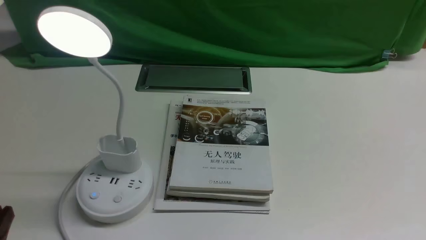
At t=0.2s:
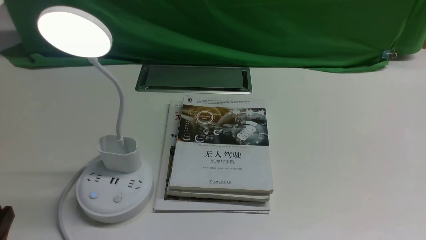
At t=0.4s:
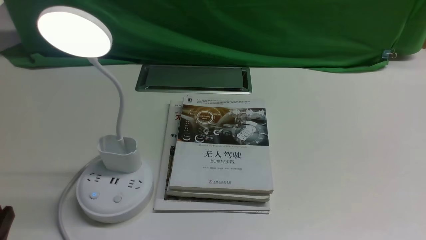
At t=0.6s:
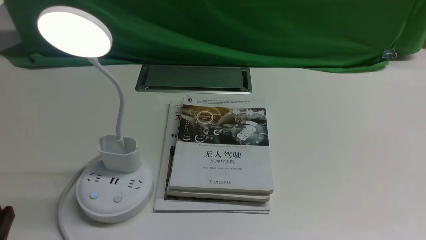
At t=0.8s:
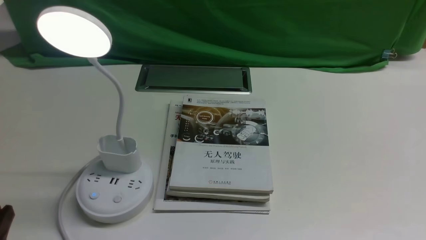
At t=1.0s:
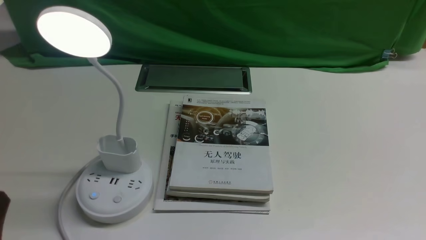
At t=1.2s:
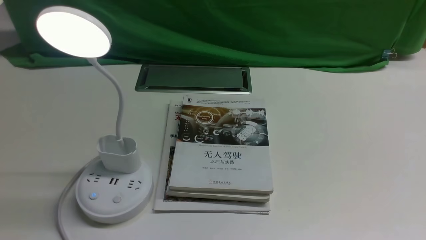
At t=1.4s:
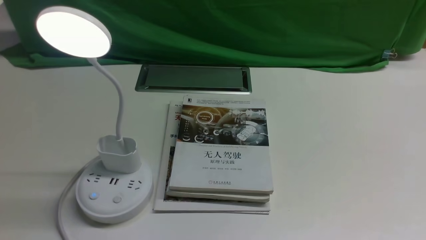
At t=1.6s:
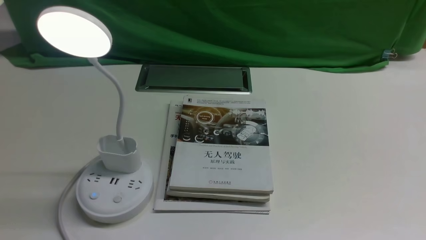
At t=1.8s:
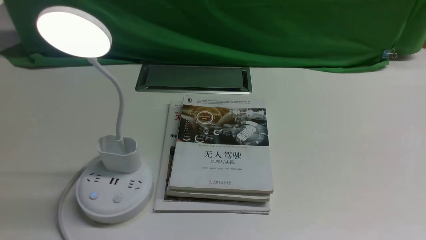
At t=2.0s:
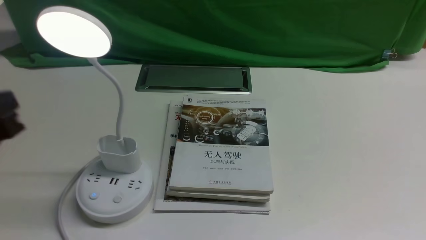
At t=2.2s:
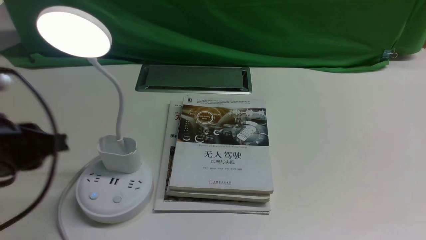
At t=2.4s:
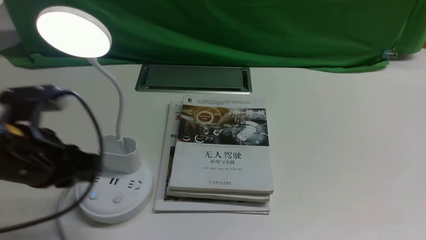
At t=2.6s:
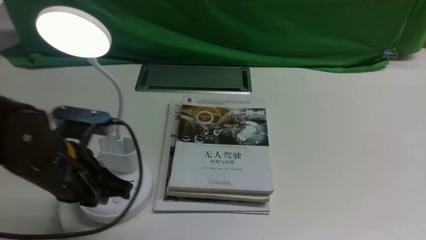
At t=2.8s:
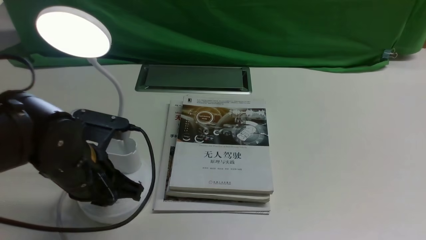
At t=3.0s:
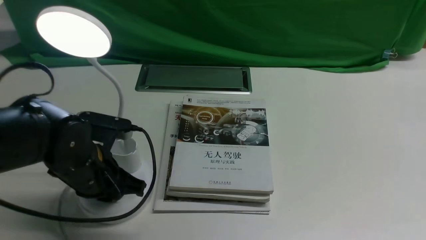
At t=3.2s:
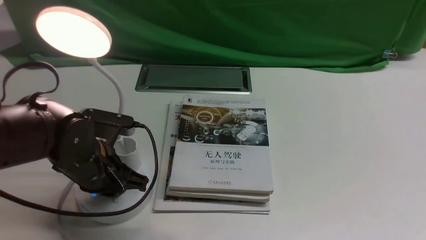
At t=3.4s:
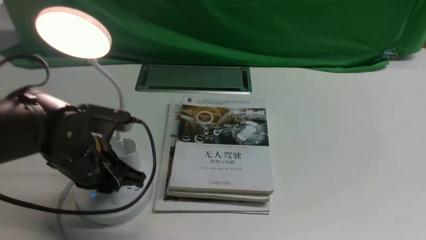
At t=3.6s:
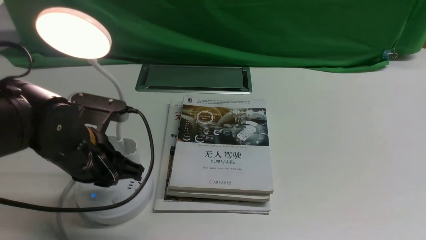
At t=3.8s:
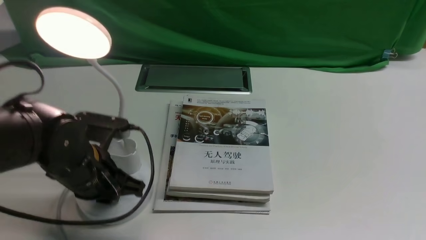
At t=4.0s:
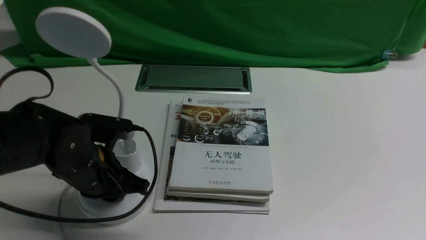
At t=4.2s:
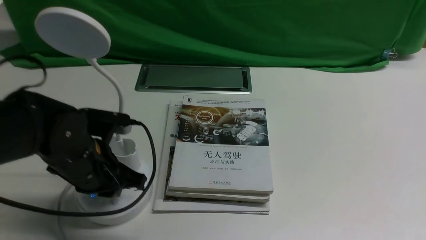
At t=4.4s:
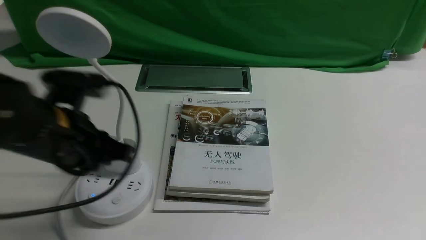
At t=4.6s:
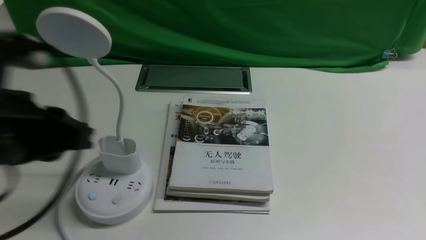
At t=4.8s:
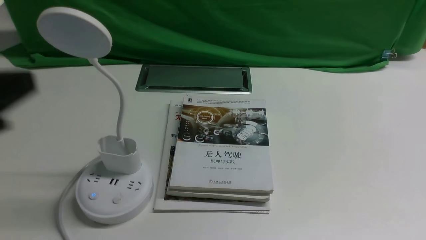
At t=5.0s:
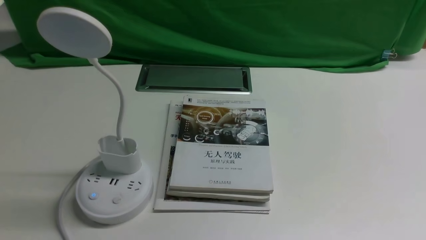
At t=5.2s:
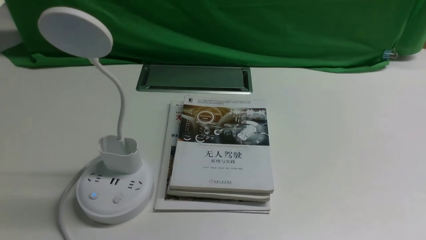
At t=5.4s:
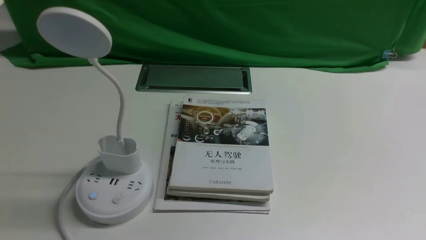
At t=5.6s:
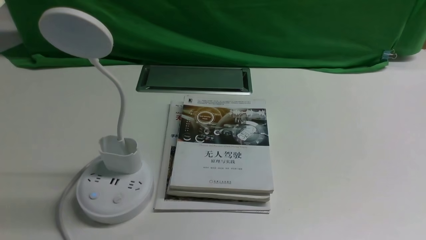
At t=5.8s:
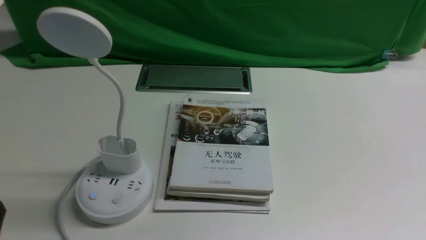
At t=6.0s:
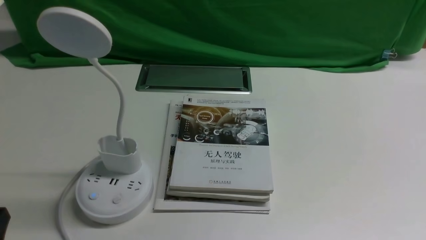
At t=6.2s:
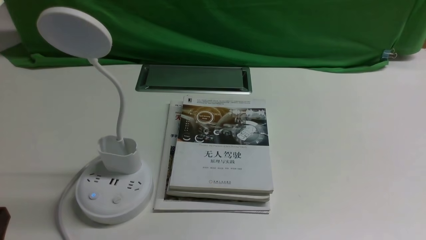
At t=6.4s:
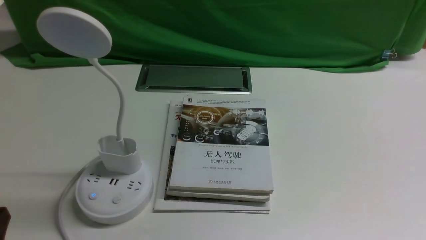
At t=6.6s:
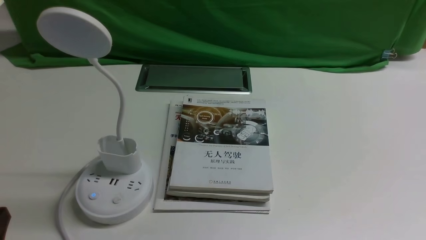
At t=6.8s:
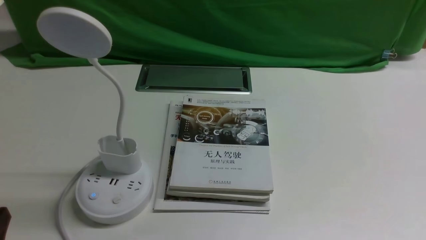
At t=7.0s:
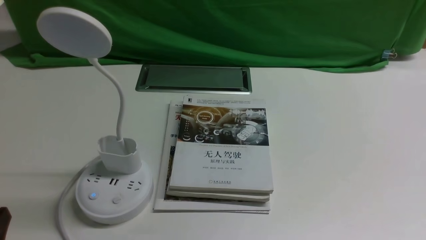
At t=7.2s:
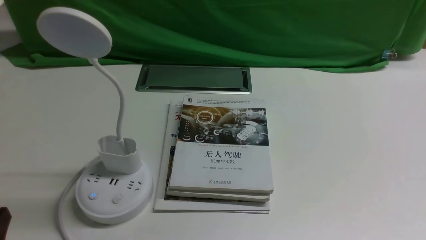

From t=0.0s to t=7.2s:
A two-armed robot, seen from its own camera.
Task of the whole recording: turn off the desk lamp on the white desktop by hand.
Step, from t=0.0s to t=4.2s: use the left arm to press the button switch on the lamp holder.
From t=1.4s to t=2.8s: The left gripper heads forward and to the right, covering roughly 20 cm.
From t=2.8s to t=4.4s: The grippers make only small movements.
From t=4.4s to t=5.8s: The left gripper is displaced backward and to the left by about 20 cm.

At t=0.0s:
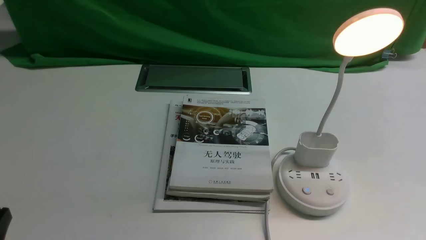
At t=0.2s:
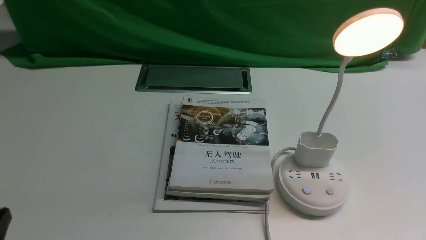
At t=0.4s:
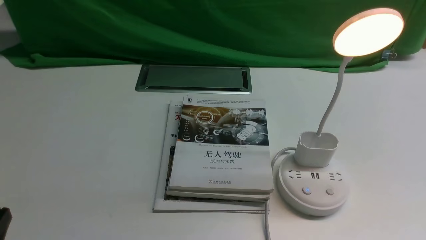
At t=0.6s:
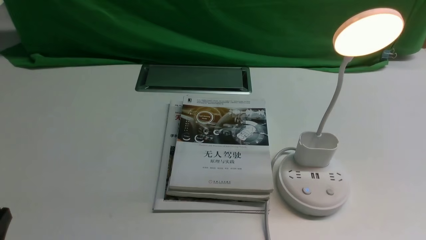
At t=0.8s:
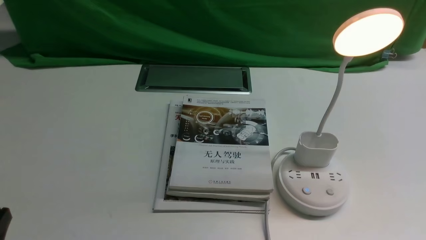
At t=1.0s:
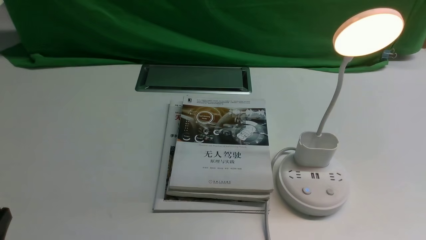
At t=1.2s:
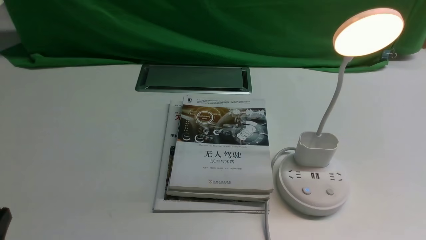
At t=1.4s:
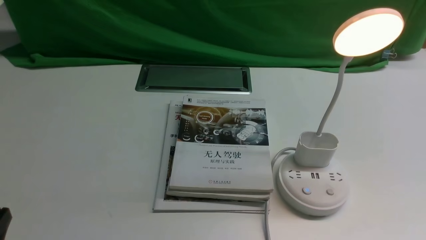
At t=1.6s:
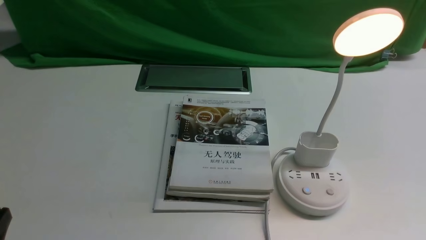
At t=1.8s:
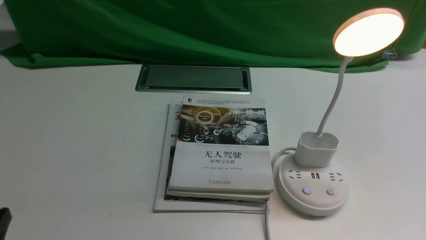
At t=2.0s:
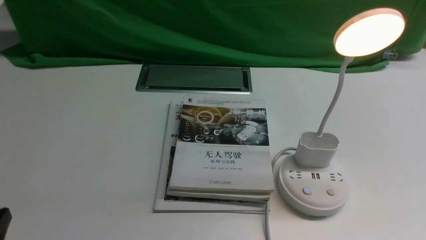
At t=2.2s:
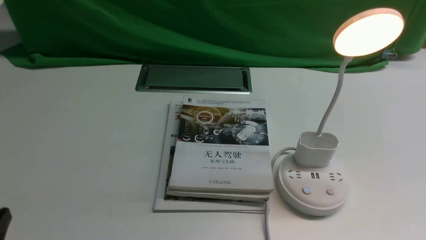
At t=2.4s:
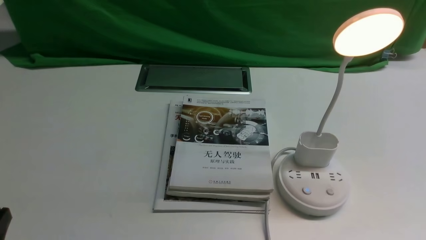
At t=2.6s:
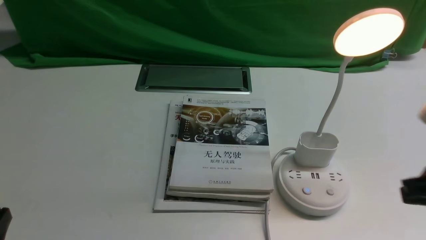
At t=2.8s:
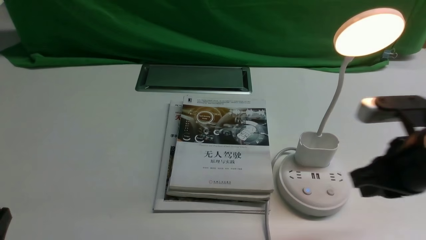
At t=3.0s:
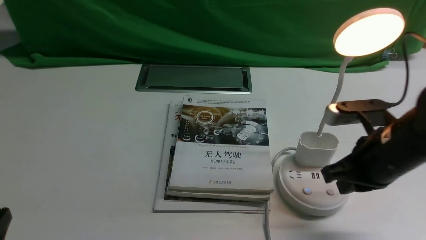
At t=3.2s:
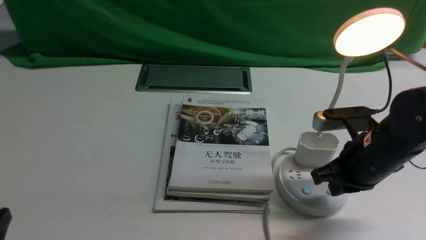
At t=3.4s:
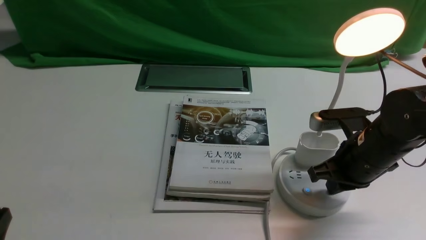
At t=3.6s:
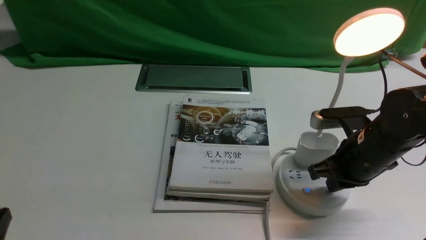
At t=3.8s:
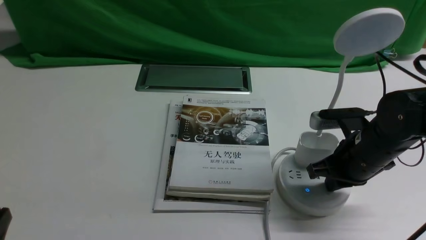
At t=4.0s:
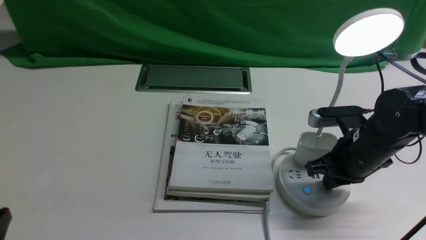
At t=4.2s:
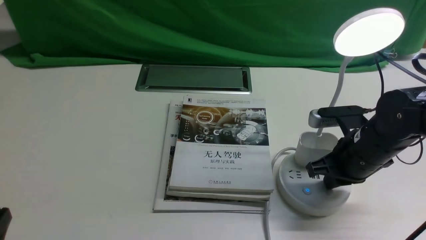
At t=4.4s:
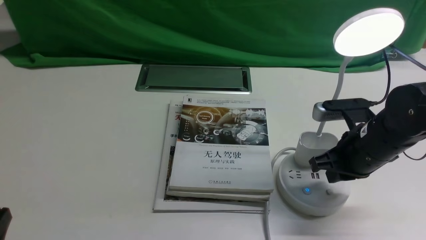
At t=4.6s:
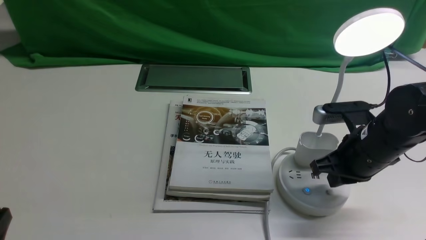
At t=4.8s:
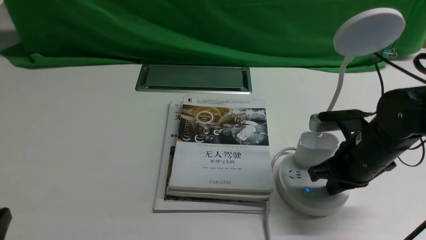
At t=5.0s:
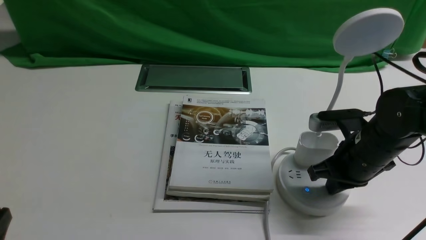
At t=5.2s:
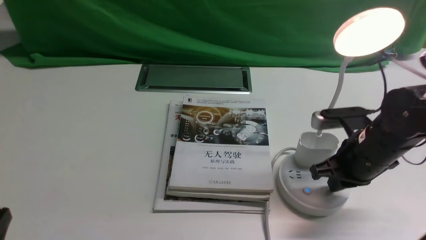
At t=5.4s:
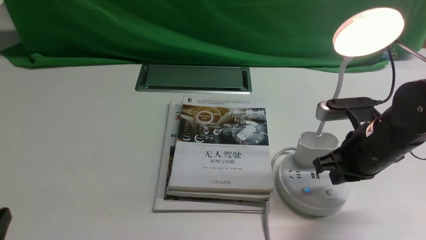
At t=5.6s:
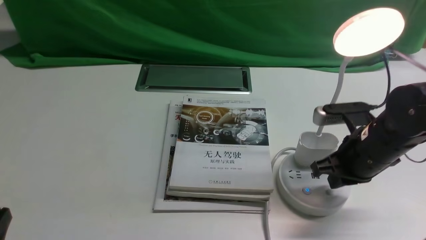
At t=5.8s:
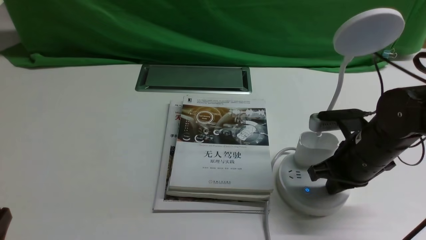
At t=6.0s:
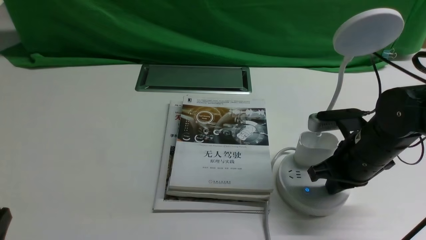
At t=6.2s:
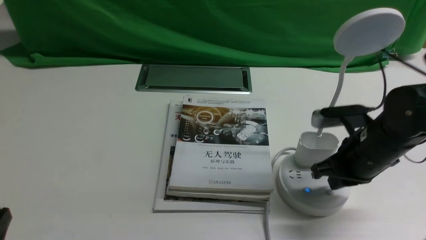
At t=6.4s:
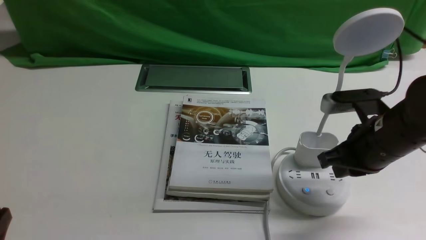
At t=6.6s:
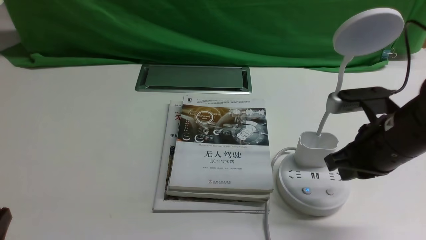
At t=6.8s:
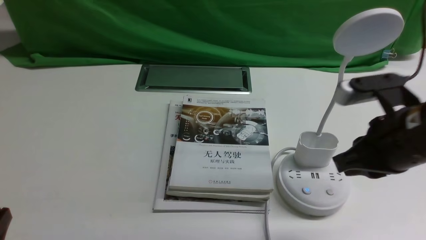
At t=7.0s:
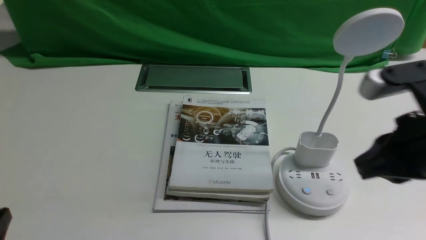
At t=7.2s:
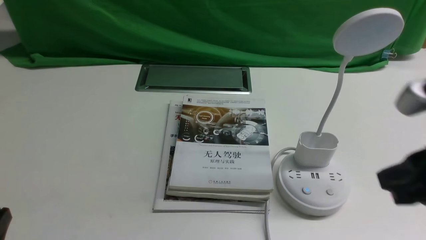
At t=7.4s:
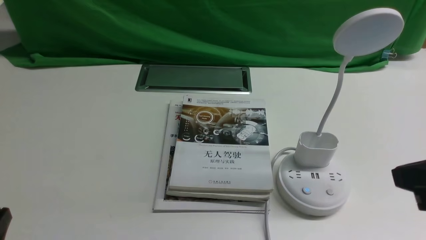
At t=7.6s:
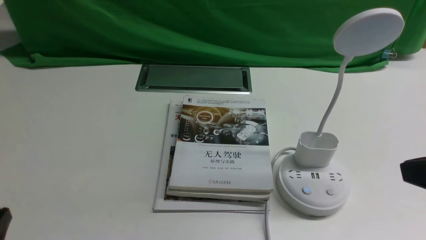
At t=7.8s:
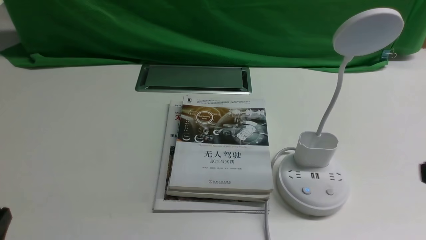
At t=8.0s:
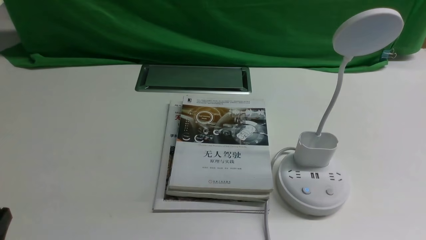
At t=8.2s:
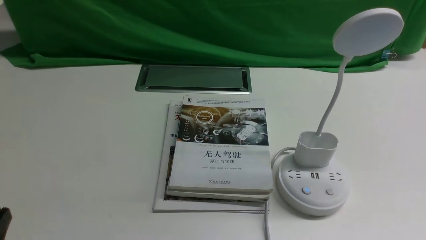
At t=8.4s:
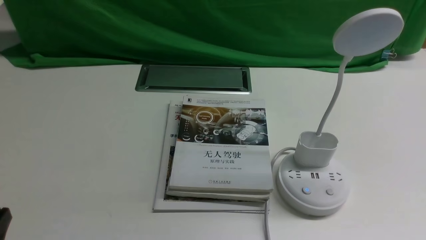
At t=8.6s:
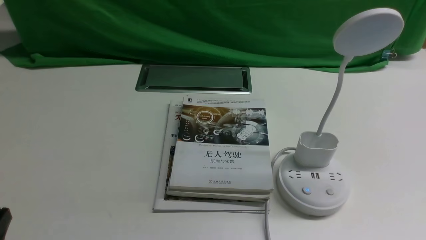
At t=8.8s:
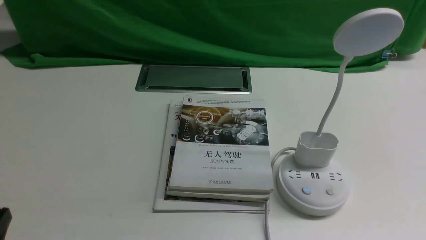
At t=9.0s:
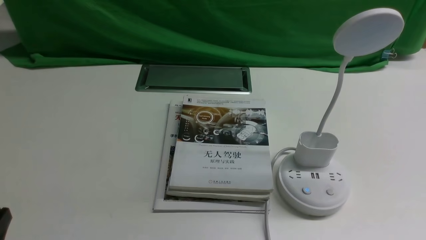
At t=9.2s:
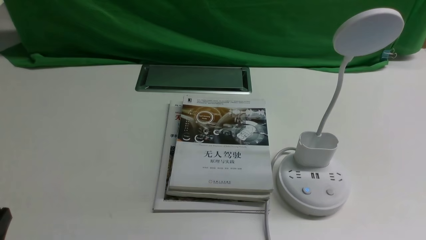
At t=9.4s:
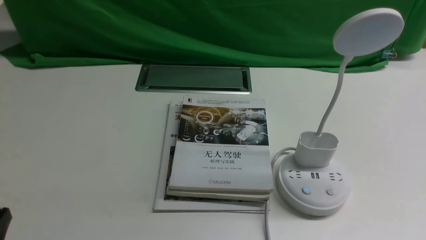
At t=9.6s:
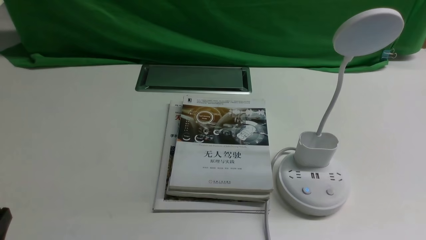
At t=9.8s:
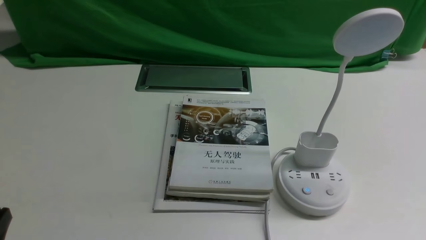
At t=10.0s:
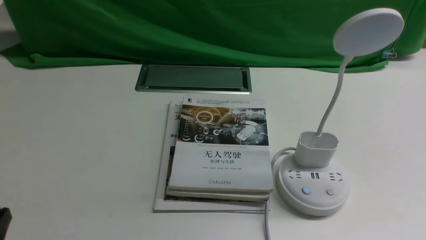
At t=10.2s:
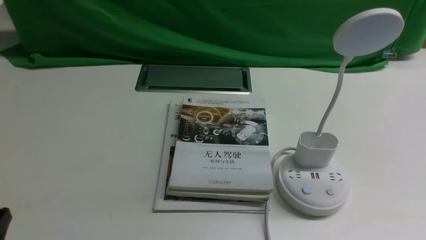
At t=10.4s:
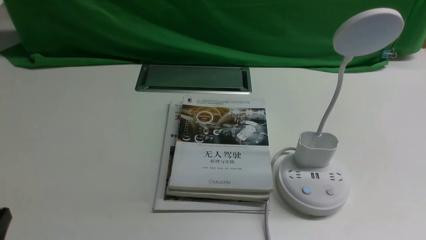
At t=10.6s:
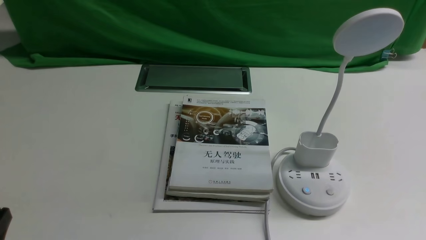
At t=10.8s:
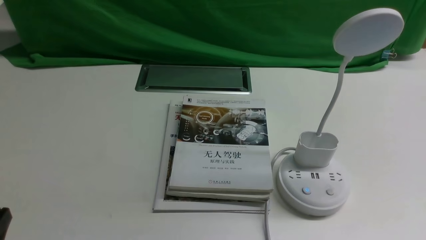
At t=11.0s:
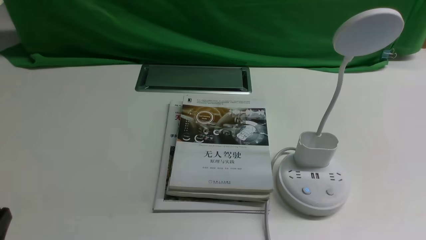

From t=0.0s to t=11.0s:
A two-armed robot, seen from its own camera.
Task of the whole recording: turn off the desk lamp on the white desktop by hand.
Step, from t=0.0s to t=6.2s: use the right arm to press the button switch on the lamp holder.
From t=1.6s to t=3.2s: The right gripper shifts roughly 25 cm forward and to the left, and opens up.
From t=3.2s to t=4.8s: The right gripper closes its fingers.
From t=4.8s to t=6.2s: The two grippers keep their place.
From t=6.2s to t=7.8s: The right gripper goes approximately 20 cm backward and upward.
